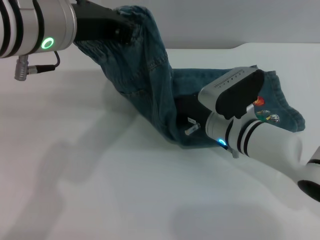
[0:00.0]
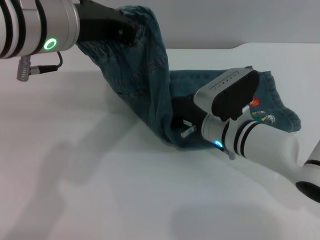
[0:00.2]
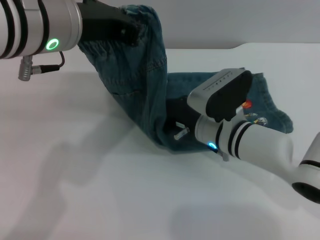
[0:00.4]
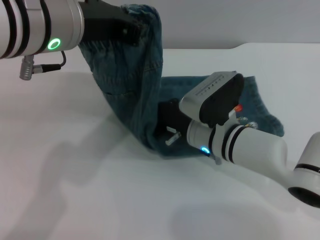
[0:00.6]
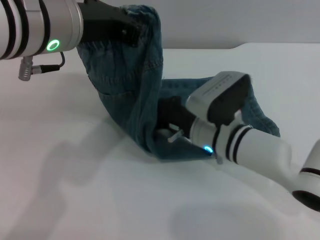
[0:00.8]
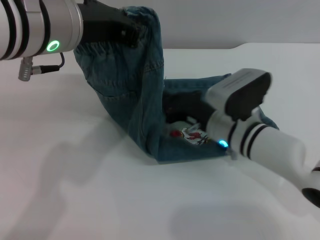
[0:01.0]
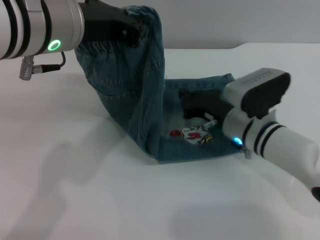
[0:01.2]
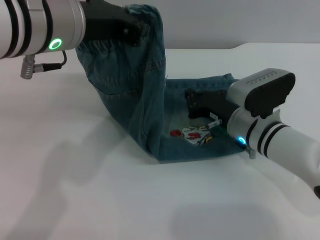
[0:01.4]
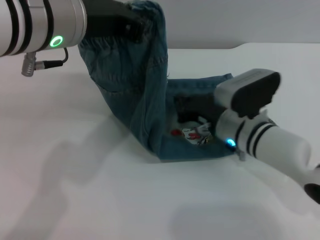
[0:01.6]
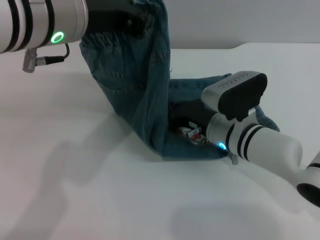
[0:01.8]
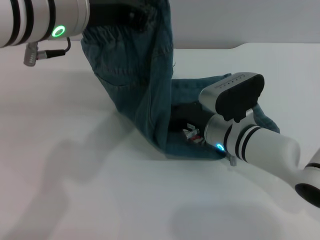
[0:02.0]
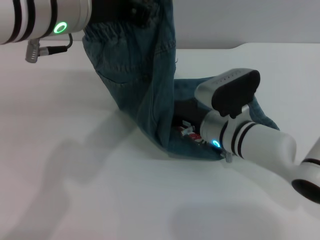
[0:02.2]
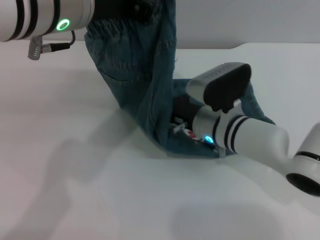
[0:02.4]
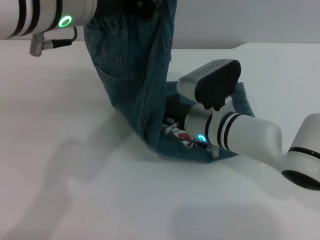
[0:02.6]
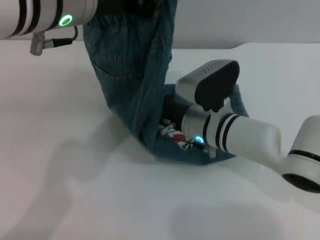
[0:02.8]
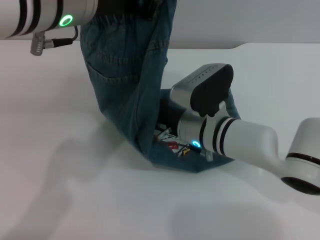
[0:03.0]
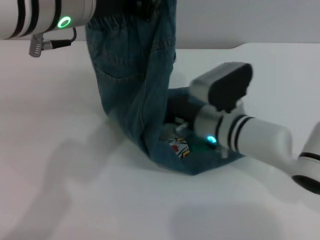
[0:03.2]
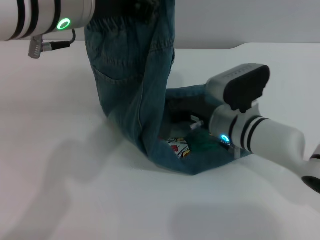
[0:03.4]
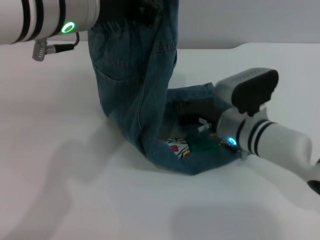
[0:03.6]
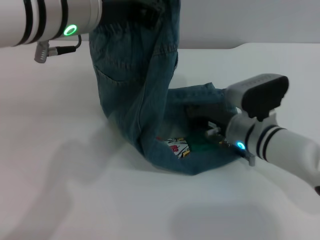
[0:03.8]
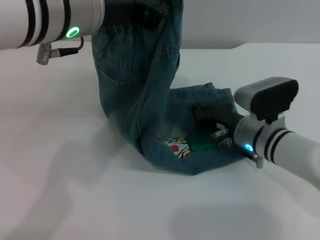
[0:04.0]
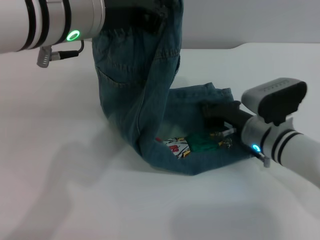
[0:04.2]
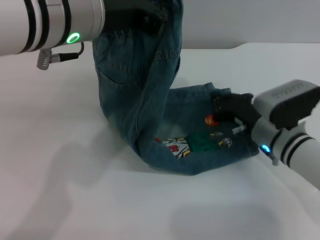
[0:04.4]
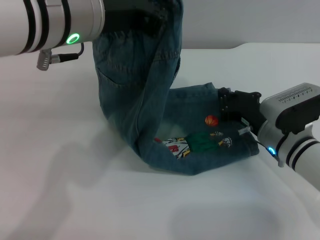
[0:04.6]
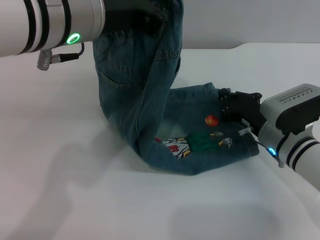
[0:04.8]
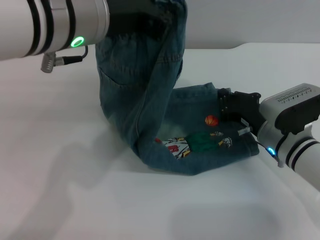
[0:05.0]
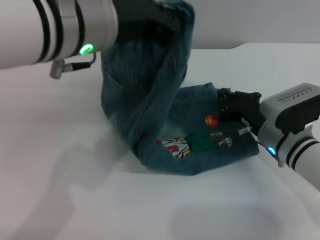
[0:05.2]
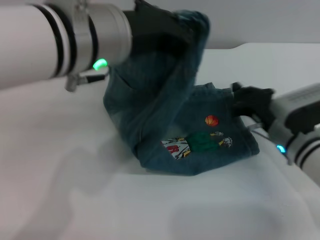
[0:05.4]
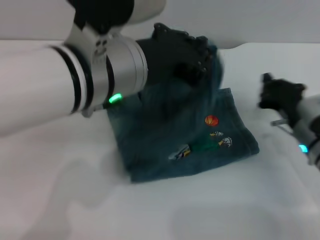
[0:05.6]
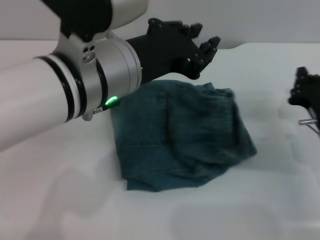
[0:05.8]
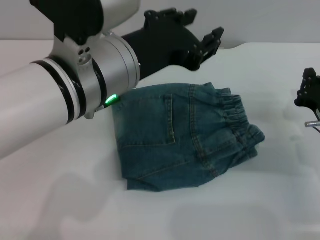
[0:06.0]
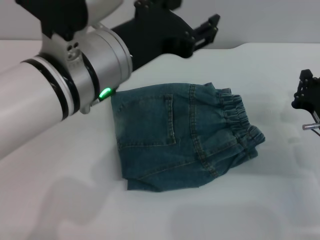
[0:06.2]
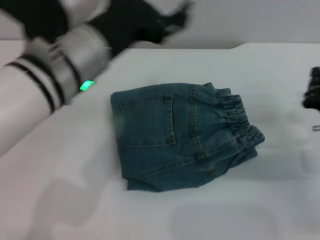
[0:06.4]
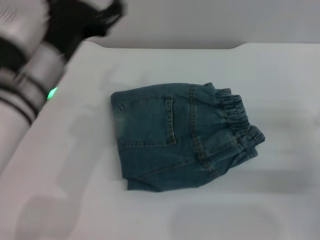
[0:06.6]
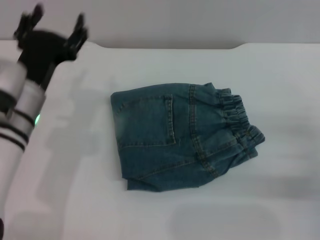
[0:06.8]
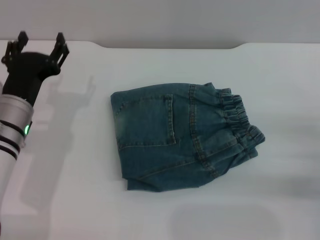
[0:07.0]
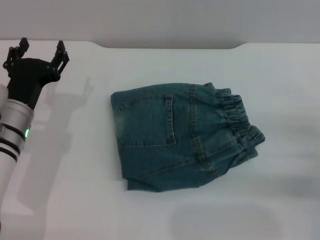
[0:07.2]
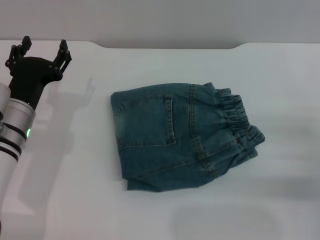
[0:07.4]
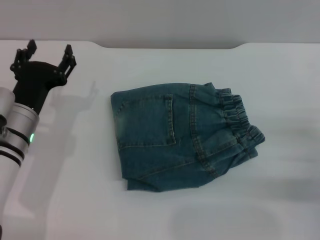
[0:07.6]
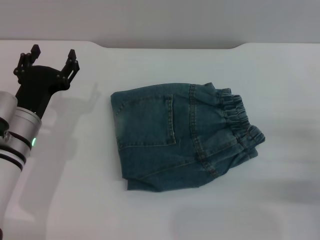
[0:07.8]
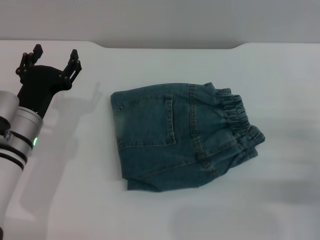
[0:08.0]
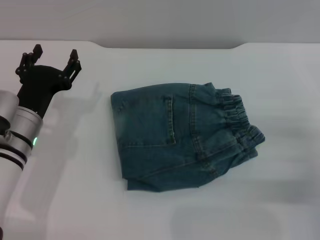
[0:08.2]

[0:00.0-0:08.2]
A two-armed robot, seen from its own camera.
Step, 0:00.0 to 0:05.8: Fold the pants from left to right with the left gripper.
0:03.2 to 0:05.0: The right gripper is displaced to the right by roughly 10 cm.
0:05.0 to 0:06.6: The left gripper heads downward, covering about 10 cm, and opens its fingers, while the right gripper travels to the right and backward by approximately 15 cm.
0:06.6 to 0:08.2: The left gripper is displaced downward and to the left by approximately 15 cm.
